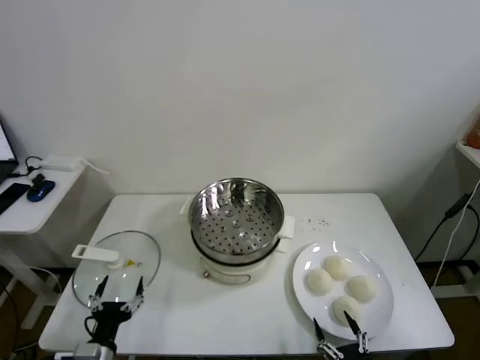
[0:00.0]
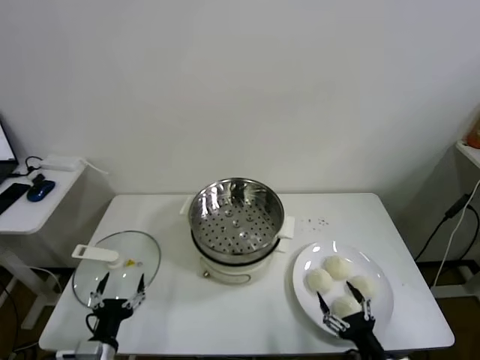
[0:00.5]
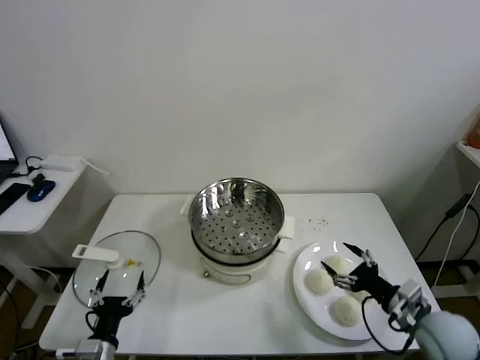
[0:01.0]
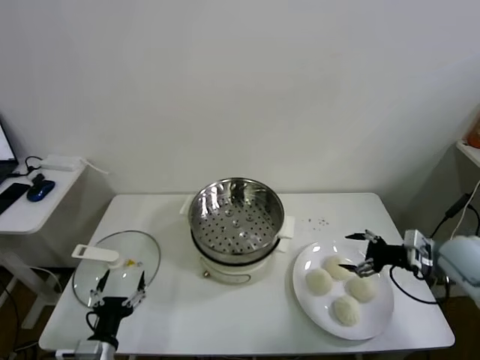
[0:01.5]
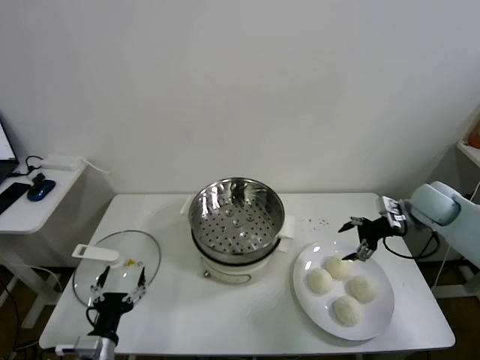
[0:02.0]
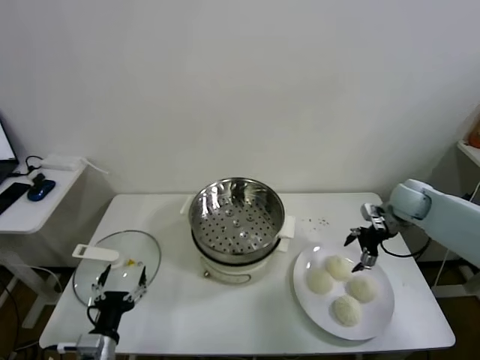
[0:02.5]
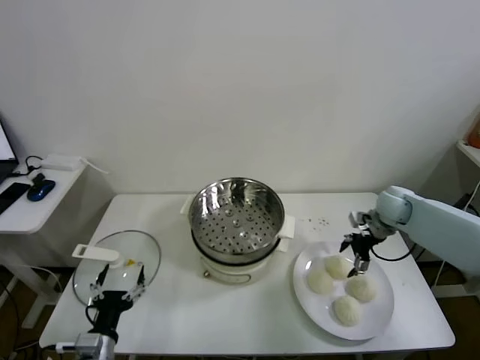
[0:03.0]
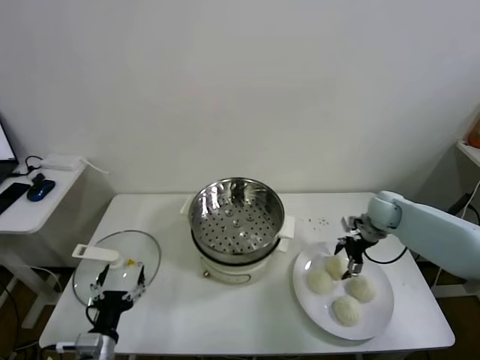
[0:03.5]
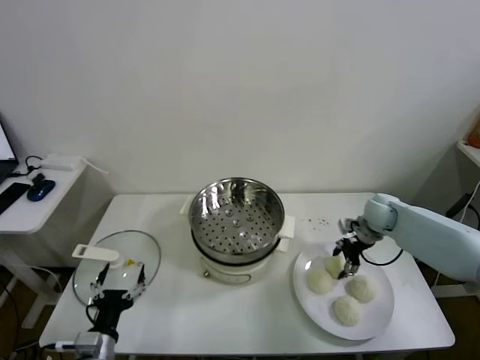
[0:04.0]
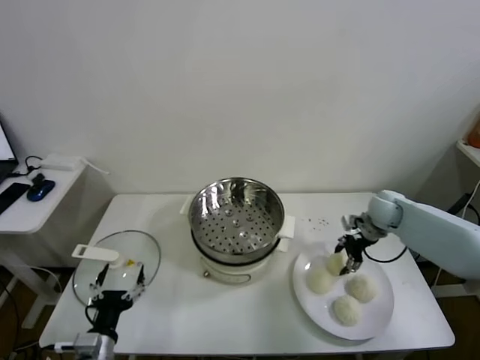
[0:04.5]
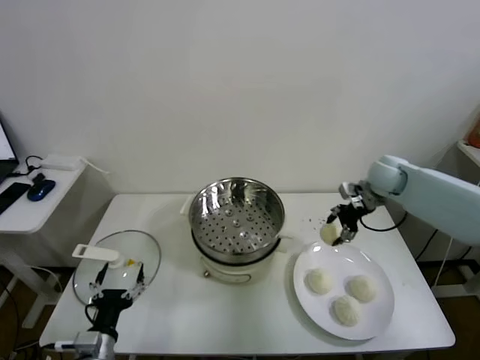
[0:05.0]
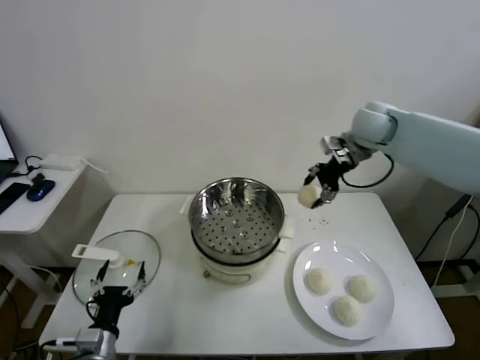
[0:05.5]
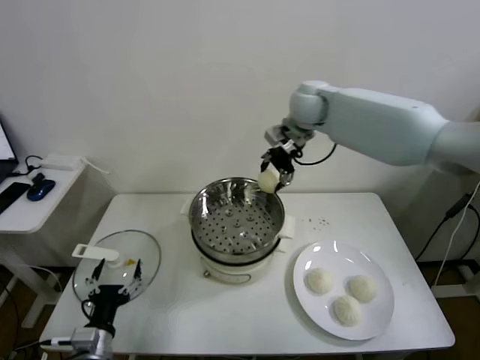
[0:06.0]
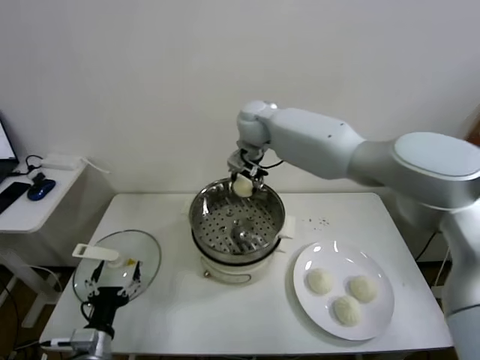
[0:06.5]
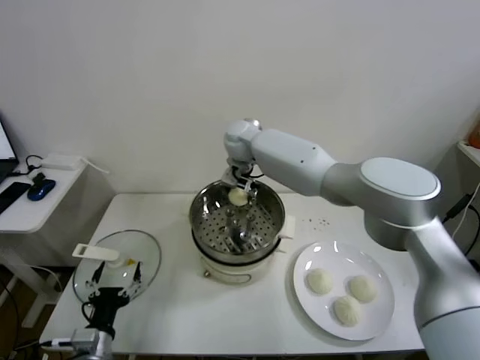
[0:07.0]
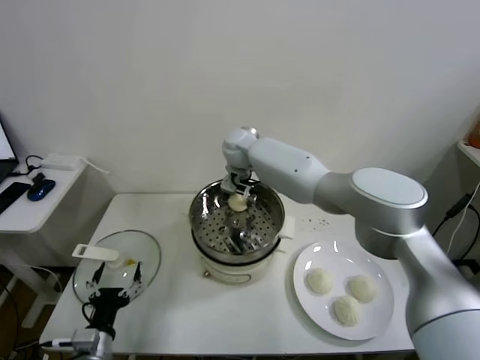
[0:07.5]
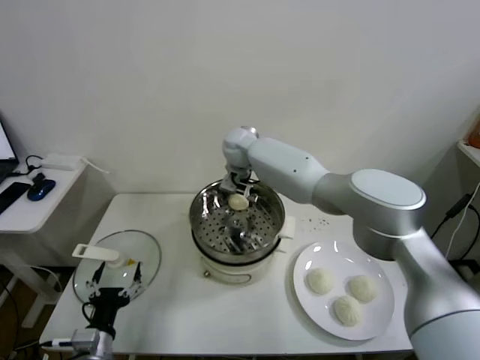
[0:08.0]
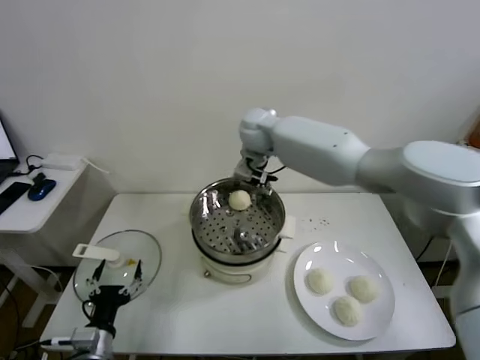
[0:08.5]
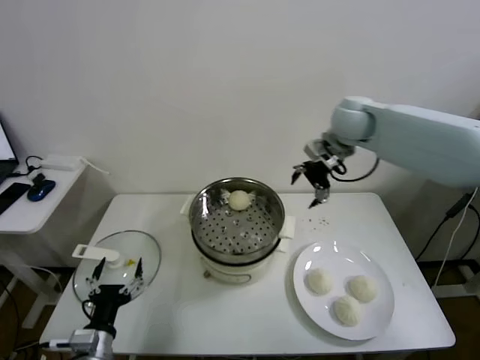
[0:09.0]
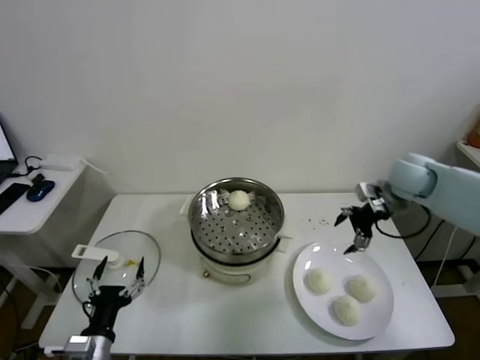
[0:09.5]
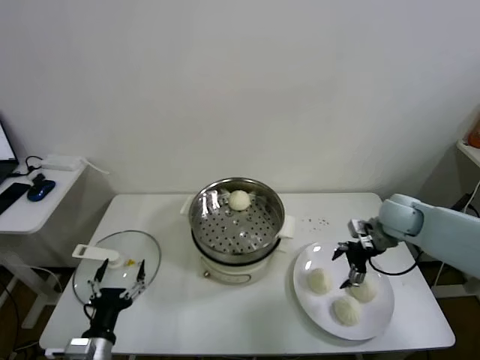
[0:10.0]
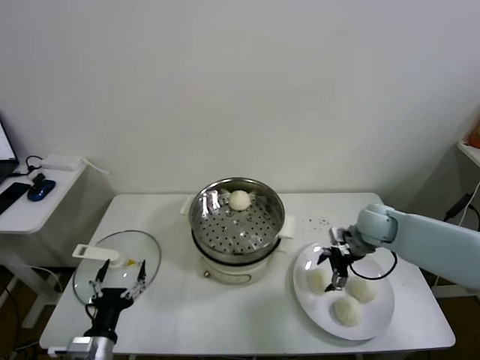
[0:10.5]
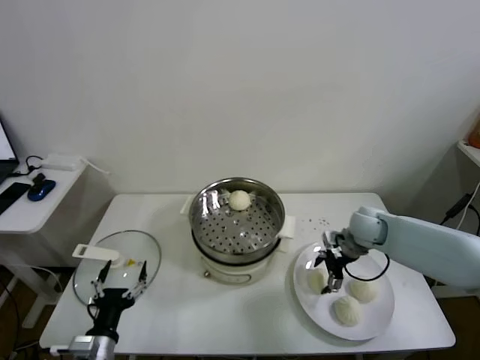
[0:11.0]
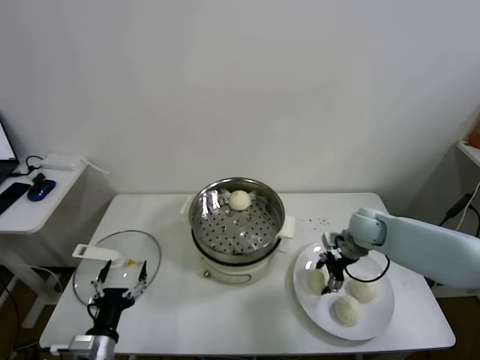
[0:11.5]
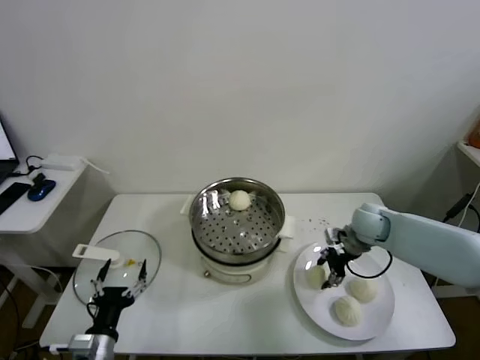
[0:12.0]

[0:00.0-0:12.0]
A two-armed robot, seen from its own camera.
Task of the whole recording: take steamed baozi put them in steamer.
Step, 0:00.0 to 0:04.0: Grasp the baozi in the plate with right gripper.
Step, 0:04.5 to 0:08.0: Place the baozi on the steamer with right gripper.
Step, 0:08.5 to 0:11.5: Grasp the baozi in the plate with right gripper.
0:02.0 to 0:04.0: The right gripper is displaced downward and to the left by some 10 cm, and closes its fingers.
0:04.0 to 0:06.0: The right gripper goes some 35 cm upward and to the left.
0:06.0 to 0:08.0: The right gripper shifts some 15 cm to the left and downward, and opens up.
0:08.0 to 0:10.0: The right gripper shifts roughly 40 cm to the right and backward.
0:10.0 to 0:12.0: The right gripper moves approximately 5 cm, and closes up.

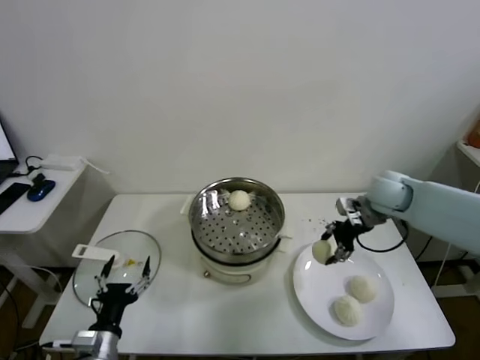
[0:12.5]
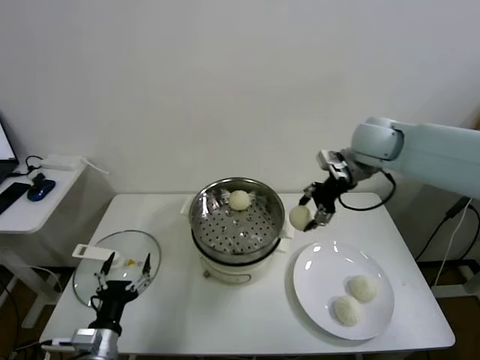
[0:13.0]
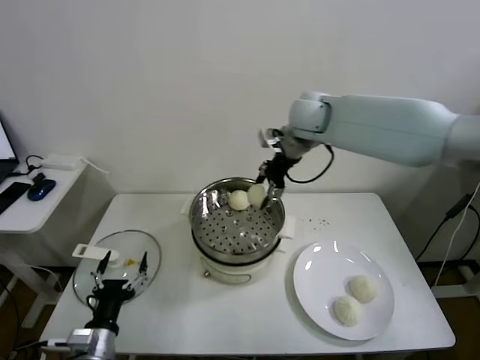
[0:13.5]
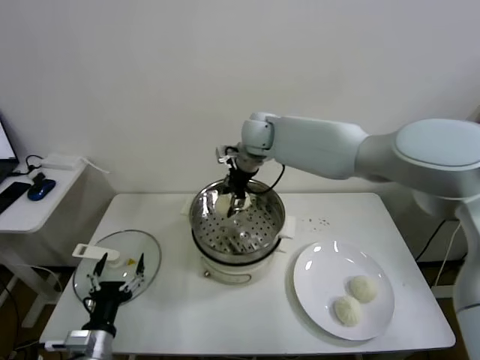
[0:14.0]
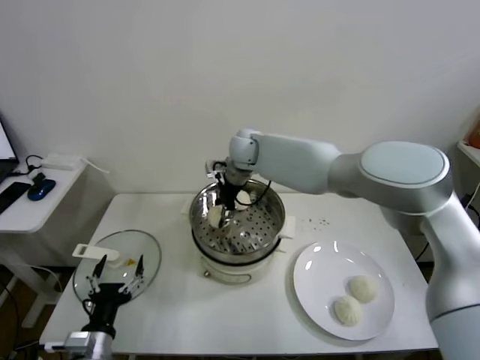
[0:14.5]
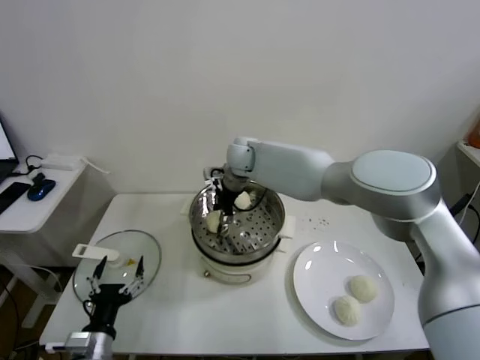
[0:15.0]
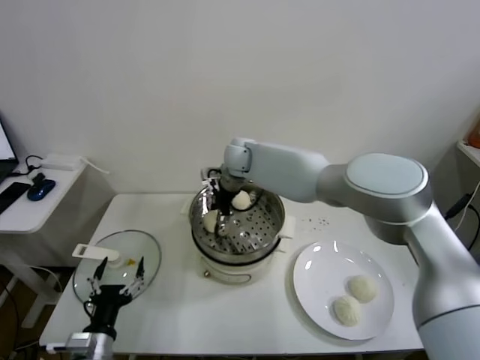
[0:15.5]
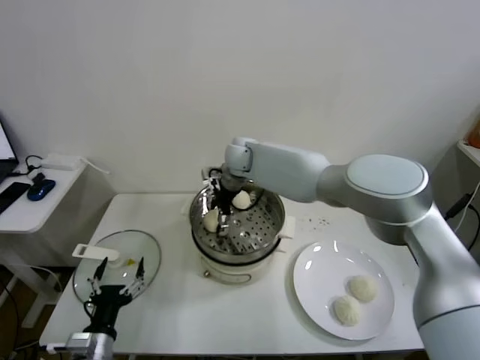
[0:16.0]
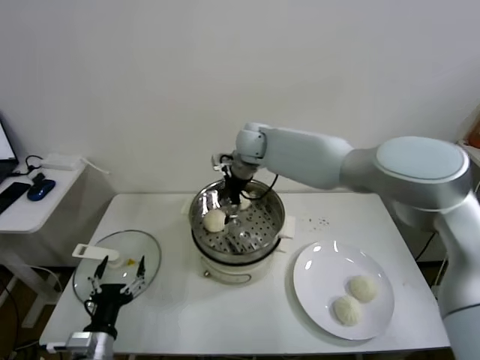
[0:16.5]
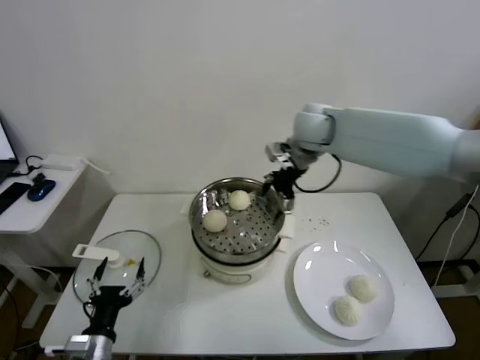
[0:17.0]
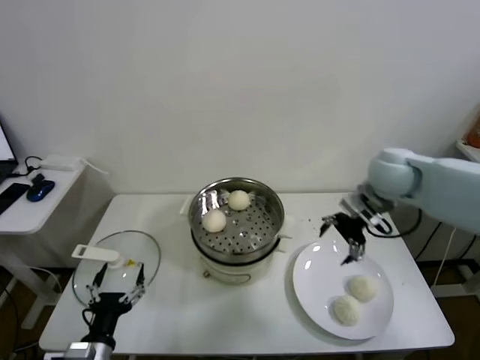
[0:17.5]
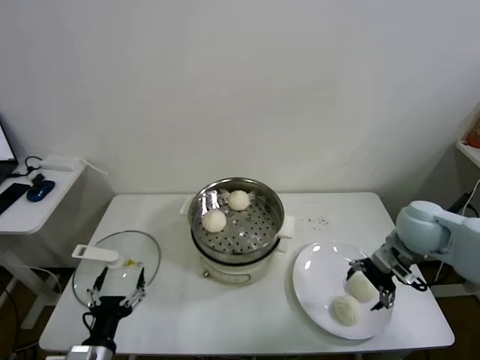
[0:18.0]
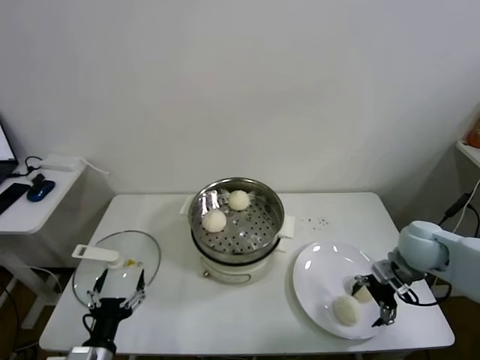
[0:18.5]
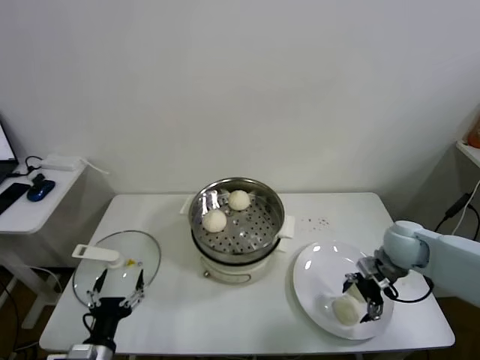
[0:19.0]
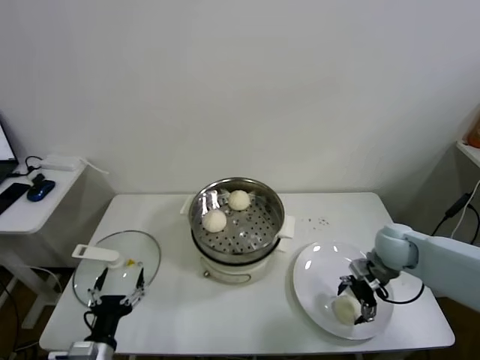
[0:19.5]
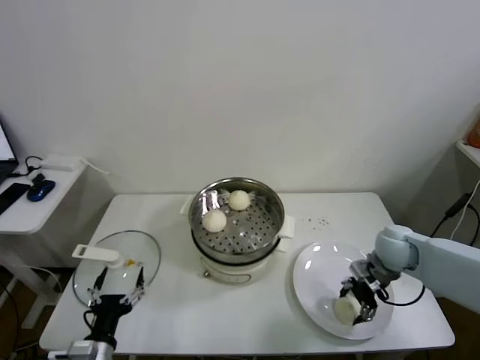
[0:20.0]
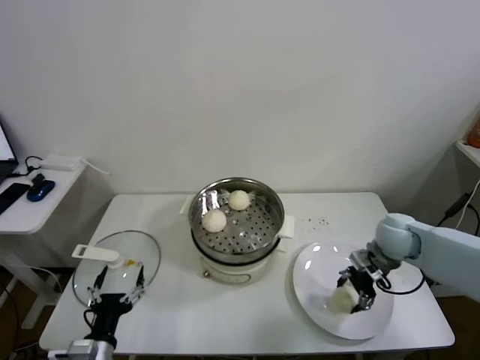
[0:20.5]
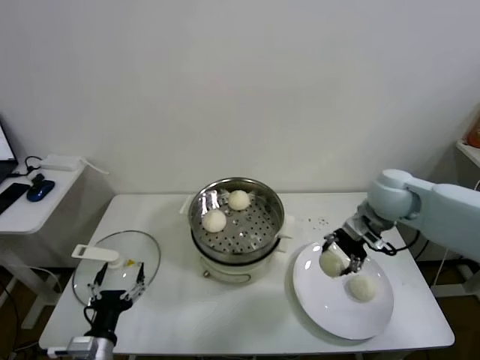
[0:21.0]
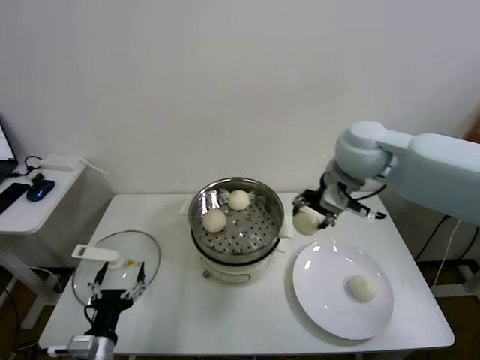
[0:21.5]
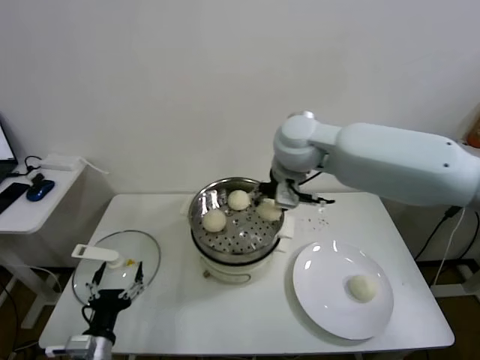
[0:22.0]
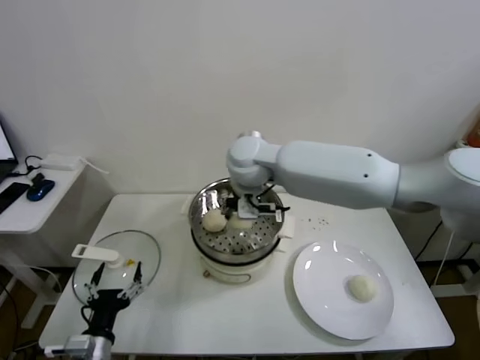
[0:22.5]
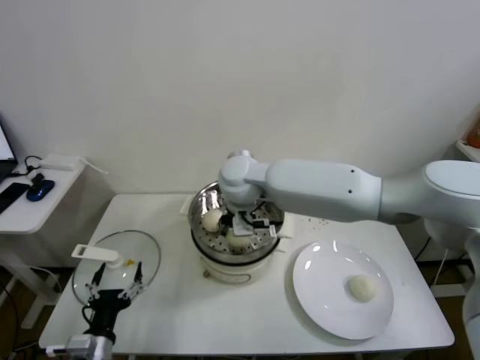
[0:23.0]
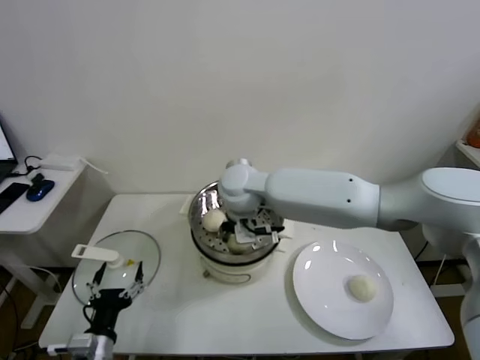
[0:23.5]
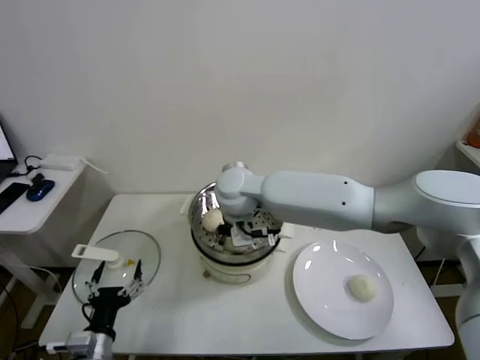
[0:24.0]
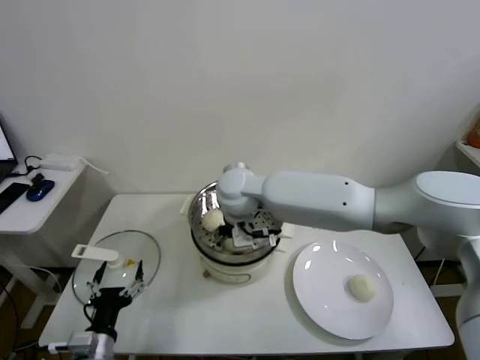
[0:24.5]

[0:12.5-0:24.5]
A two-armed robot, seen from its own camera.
Task of the whole recording: take steamed baozi put them in steamer.
Step, 0:12.5 to 0:16.0: Place the baozi on the steamer with right gripper.
Step, 0:16.5 to 0:20.0: Grasp the baozi in the plate with right gripper.
0:12.5 to 0:14.5: The right gripper shifts approximately 30 cm to the left.
0:14.5 to 0:16.5: The right gripper opens.
0:16.5 to 0:18.5: The right gripper goes approximately 40 cm to the right, backward and downward.
0:18.5 to 0:20.5: The right gripper closes its fingers.
0:20.5 to 0:22.5: The right gripper is displaced to the left and upward by about 40 cm.
0:22.5 to 0:24.5: The right gripper goes roughly 5 cm downward, and opens its fingers.

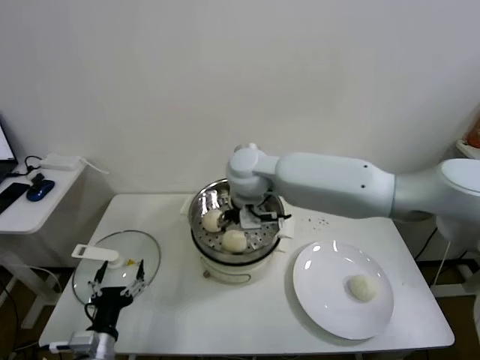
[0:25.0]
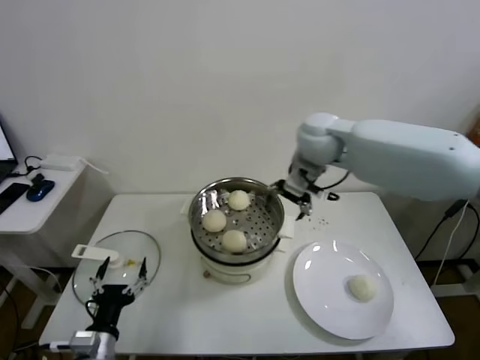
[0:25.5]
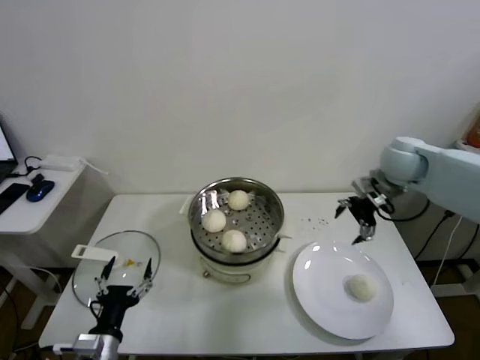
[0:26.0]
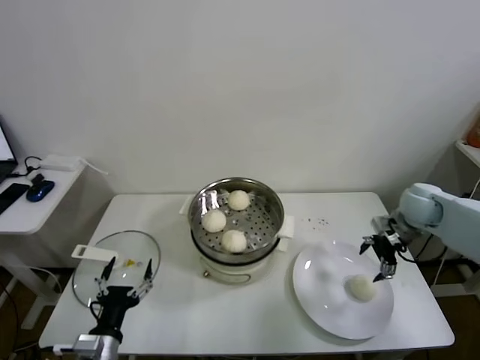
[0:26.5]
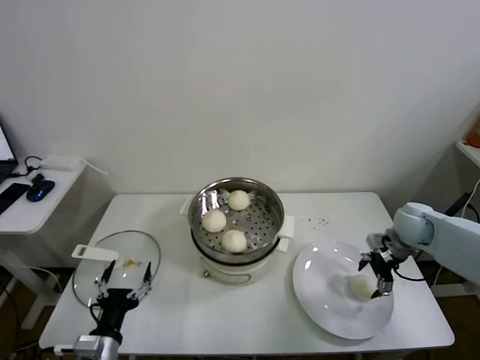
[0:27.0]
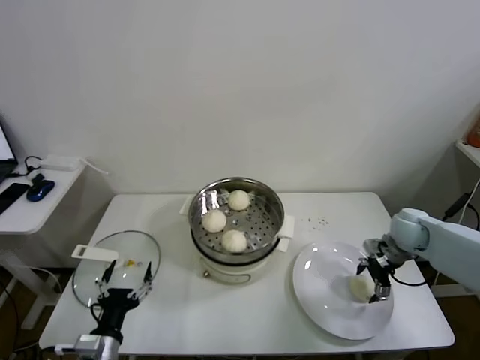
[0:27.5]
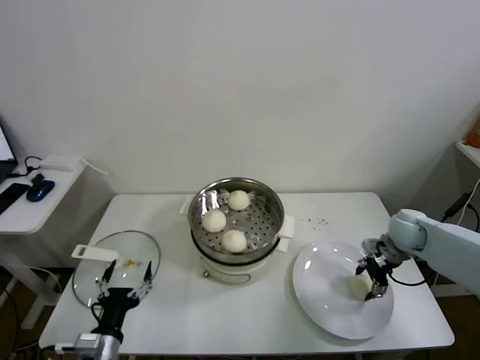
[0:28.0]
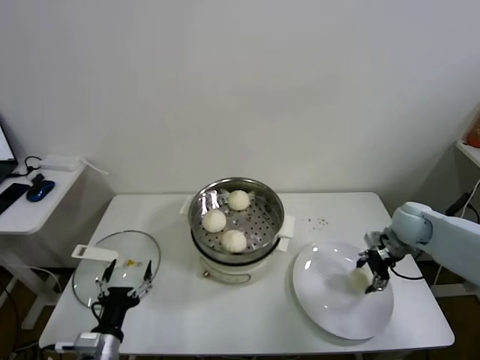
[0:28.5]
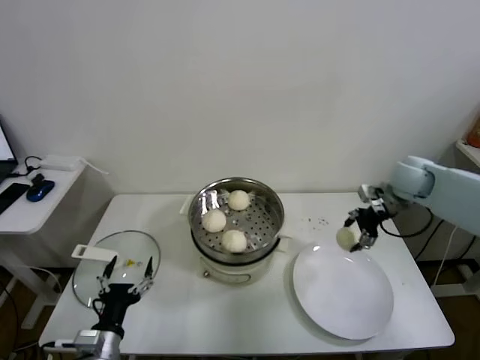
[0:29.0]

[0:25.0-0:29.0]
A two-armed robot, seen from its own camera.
Task of the whole recording: take steamed baozi put them in steamer.
Step, 0:25.0 to 0:27.5: Grasp the baozi in the plate with right gripper.
0:25.0 to 0:27.0: The right gripper is displaced to the right and downward by some 40 cm.
0:27.0 to 0:29.0: The right gripper heads upward, covering about 10 cm, and closes up.
